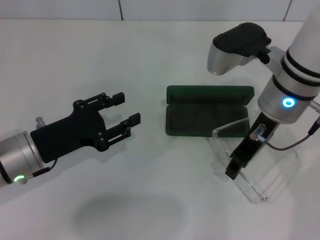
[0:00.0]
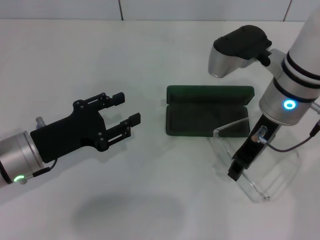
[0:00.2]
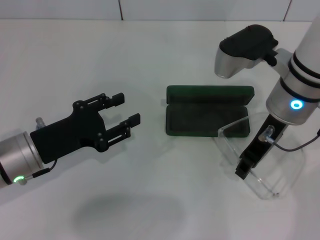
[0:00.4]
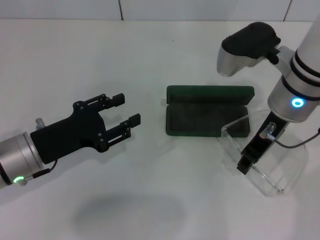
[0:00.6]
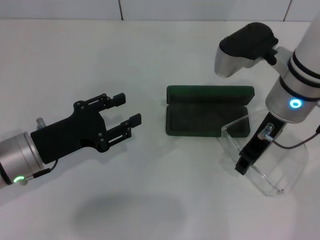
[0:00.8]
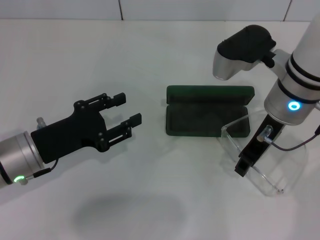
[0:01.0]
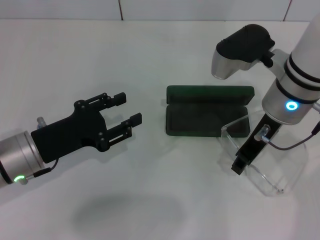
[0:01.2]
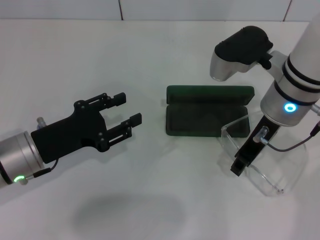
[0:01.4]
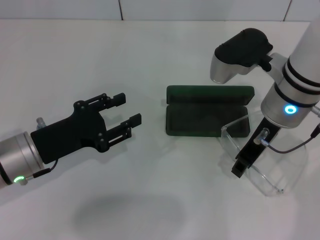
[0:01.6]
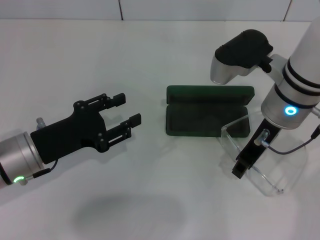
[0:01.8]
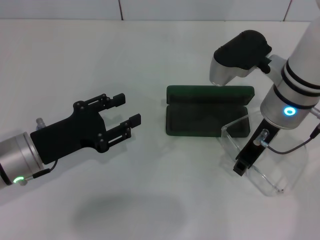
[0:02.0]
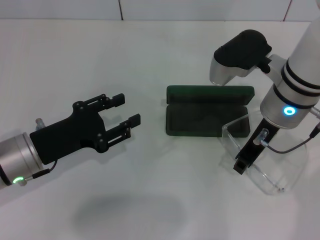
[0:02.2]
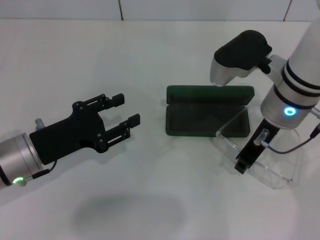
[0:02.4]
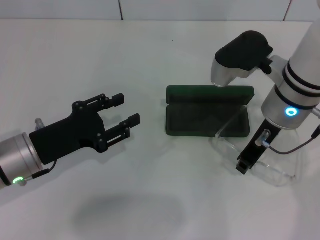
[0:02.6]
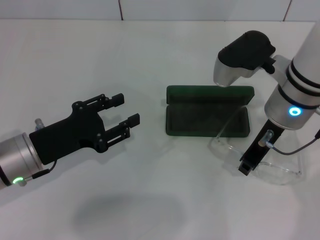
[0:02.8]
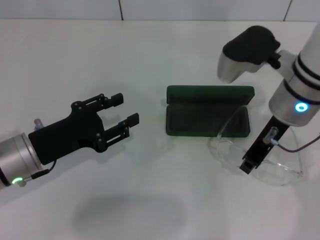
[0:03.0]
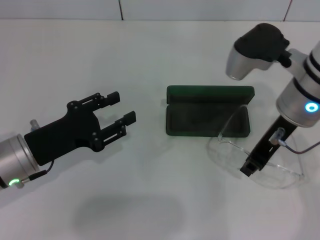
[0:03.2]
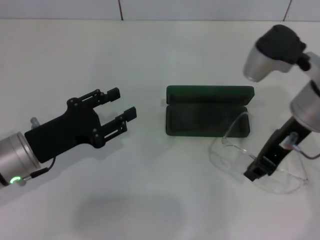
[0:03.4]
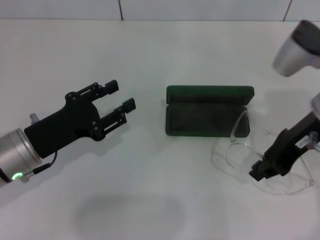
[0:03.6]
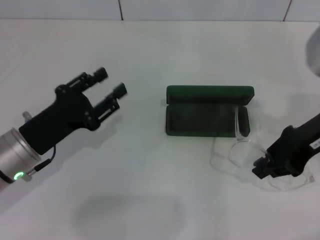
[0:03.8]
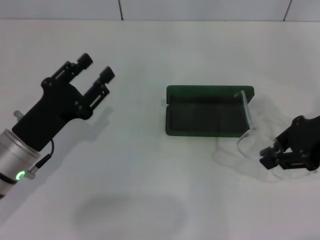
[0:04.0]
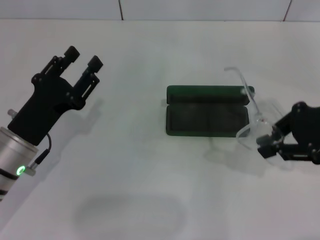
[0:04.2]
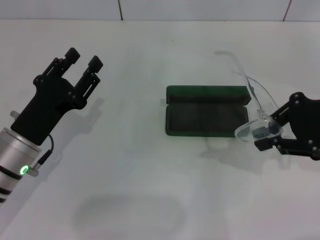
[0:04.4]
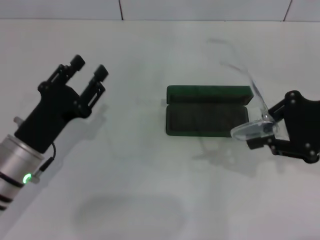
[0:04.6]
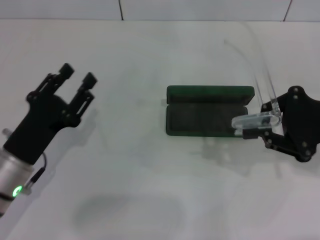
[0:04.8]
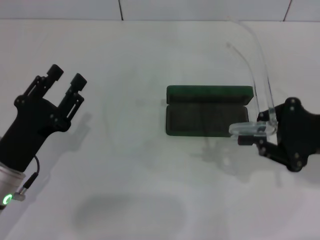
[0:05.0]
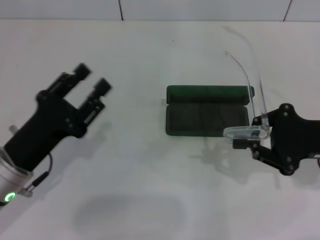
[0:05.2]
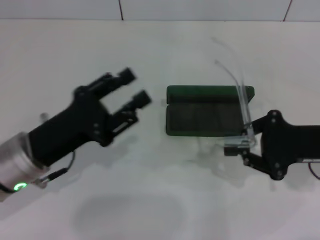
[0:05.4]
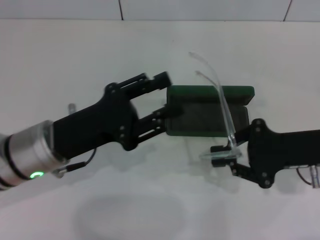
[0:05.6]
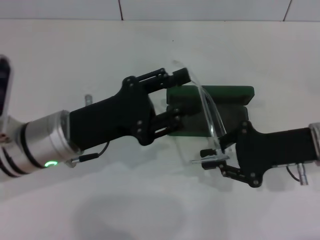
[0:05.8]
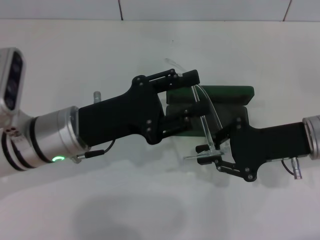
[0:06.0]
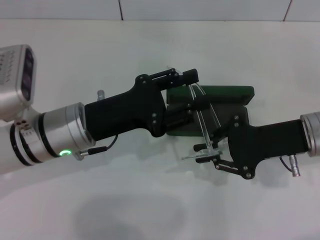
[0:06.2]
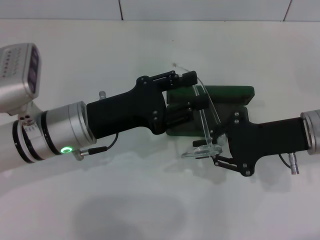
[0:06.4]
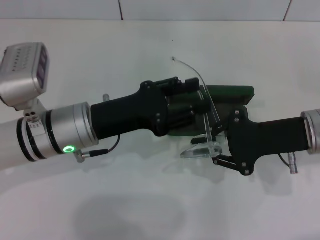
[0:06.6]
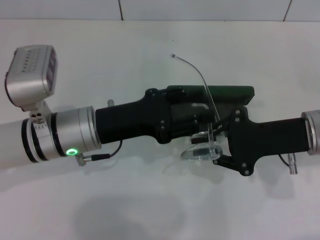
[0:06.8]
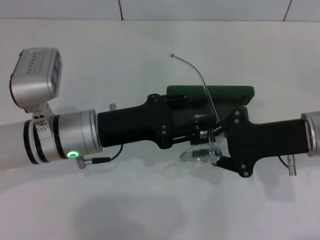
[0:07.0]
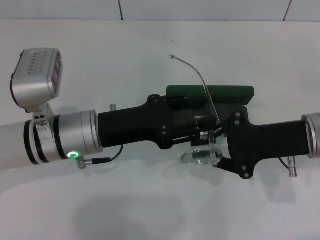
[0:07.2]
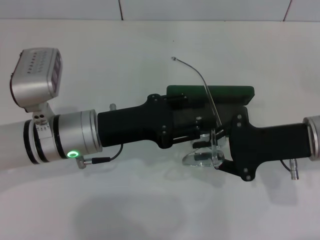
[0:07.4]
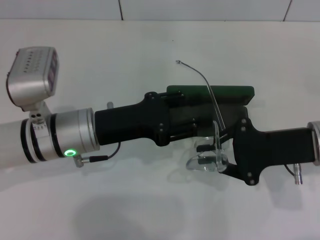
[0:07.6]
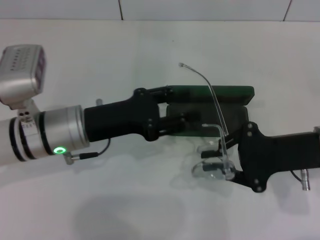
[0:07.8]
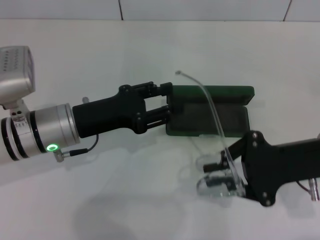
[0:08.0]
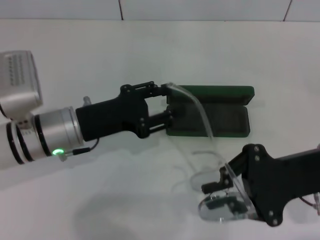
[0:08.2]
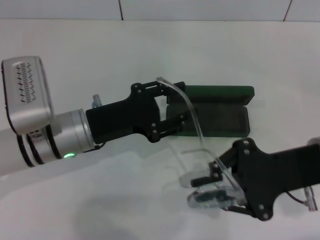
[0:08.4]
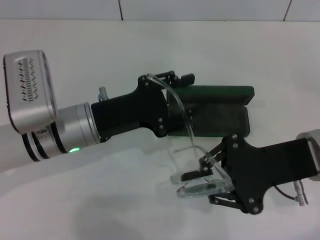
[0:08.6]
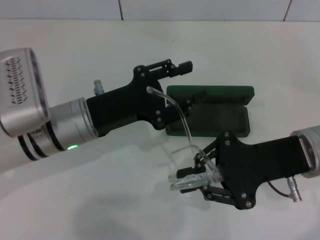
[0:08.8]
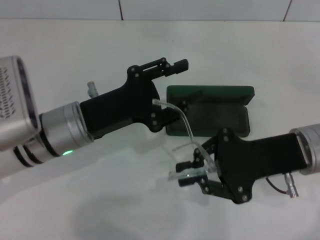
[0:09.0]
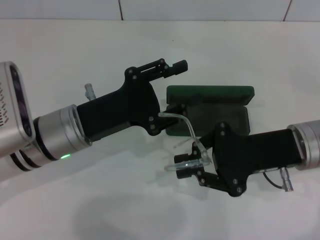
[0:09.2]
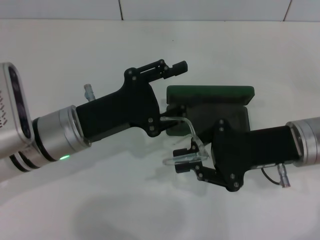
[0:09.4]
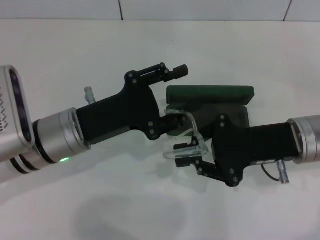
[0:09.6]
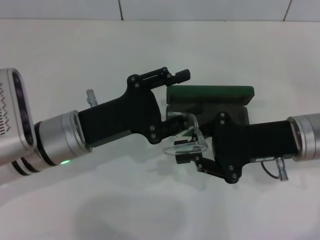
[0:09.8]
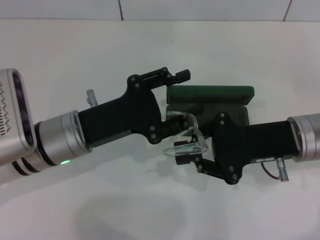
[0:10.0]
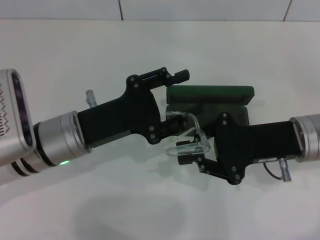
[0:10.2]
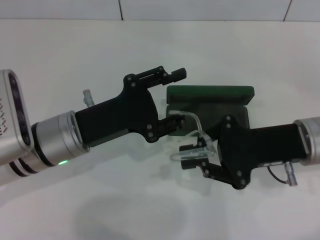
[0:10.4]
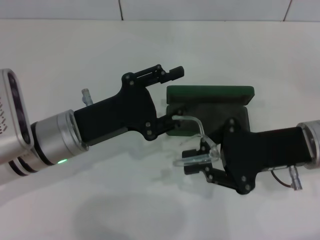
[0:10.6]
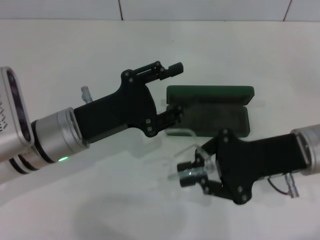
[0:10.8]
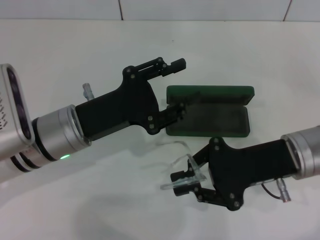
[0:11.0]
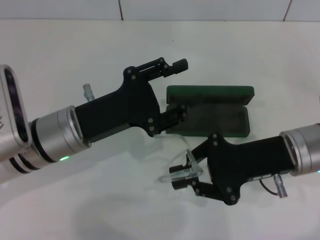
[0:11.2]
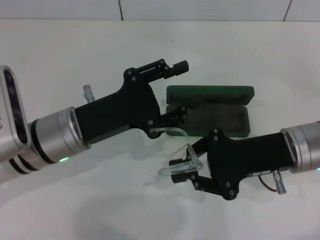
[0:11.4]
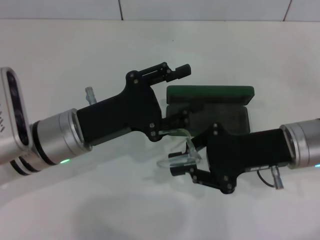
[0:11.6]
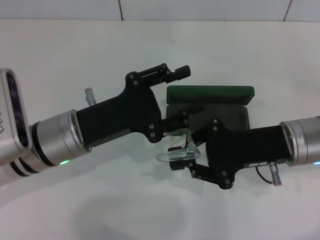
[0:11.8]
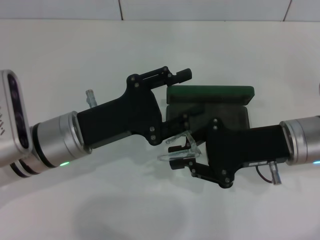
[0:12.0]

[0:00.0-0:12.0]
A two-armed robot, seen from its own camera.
Step, 0:00.0 to 0:02.6: Grab the eyeglass frame with your right hand.
Step, 0:03.0 to 0:10.0: Fold the frame with your left hand.
0:00.0 to 0:01.6: Both grippers stay about where they are.
0:01.6 to 0:03.0: Both grippers stay about where they are.
0:03.0 to 0:04.4: The right gripper heads to the right, covering approximately 15 cm.
0:04.4 to 0:06.0: The right gripper shifts approximately 10 cm downward, while the left gripper goes approximately 10 cm to the right and upward.
0:06.0 to 0:07.6: The grippers move only a little.
0:09.0 to 0:12.0: There are only small adjustments of the grippers.

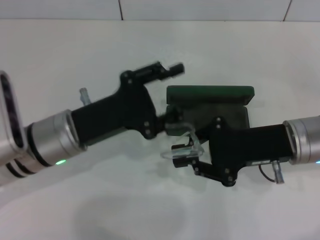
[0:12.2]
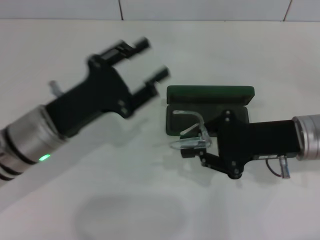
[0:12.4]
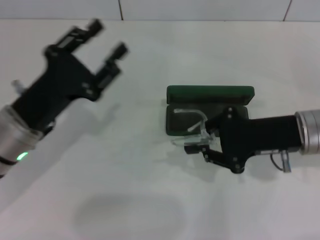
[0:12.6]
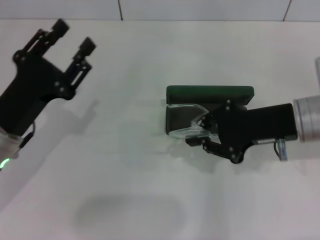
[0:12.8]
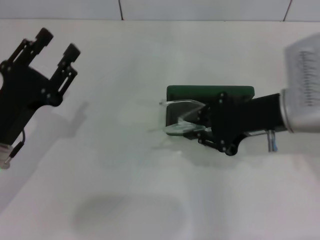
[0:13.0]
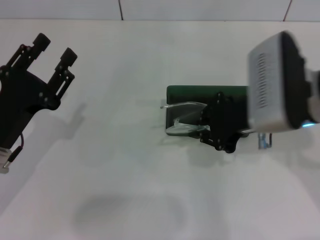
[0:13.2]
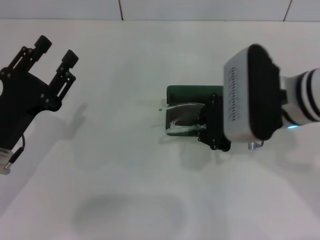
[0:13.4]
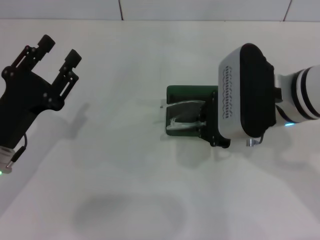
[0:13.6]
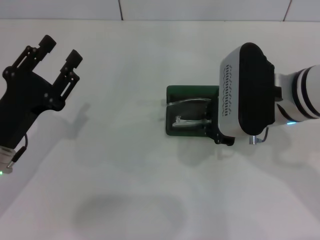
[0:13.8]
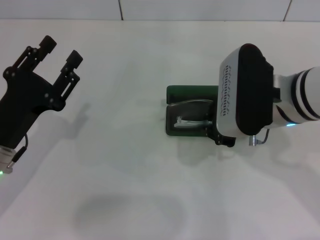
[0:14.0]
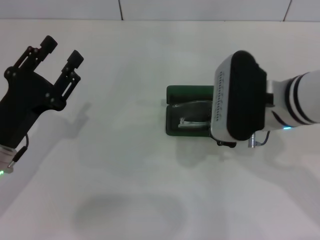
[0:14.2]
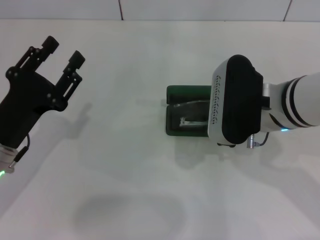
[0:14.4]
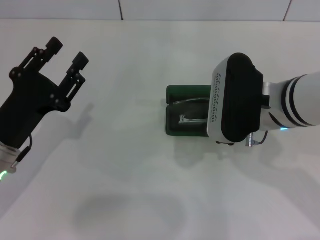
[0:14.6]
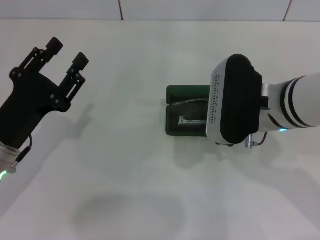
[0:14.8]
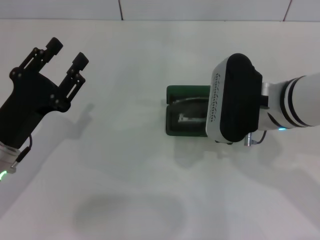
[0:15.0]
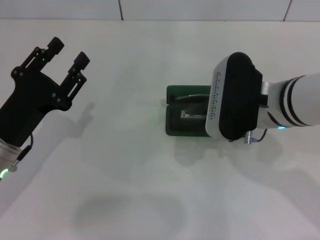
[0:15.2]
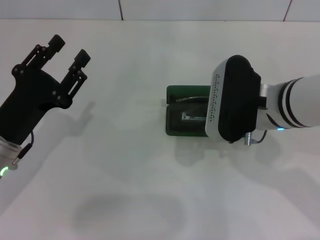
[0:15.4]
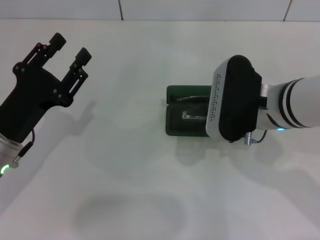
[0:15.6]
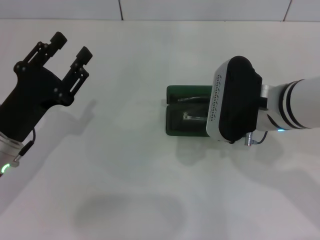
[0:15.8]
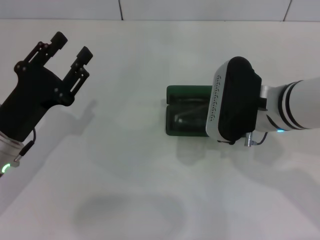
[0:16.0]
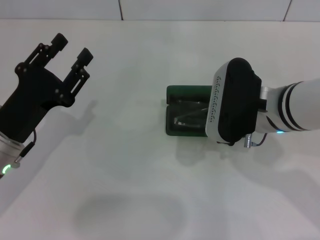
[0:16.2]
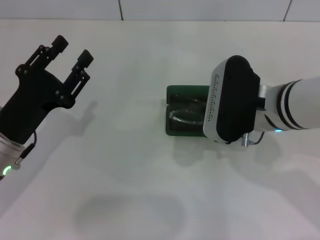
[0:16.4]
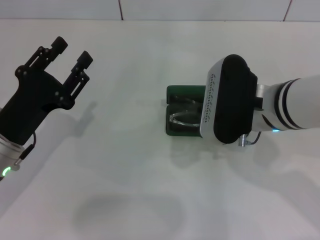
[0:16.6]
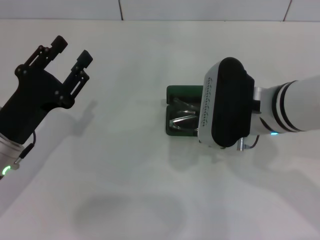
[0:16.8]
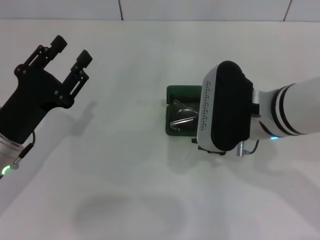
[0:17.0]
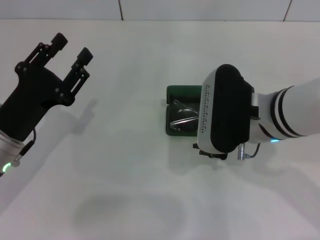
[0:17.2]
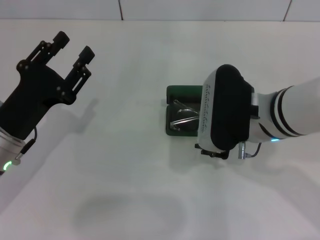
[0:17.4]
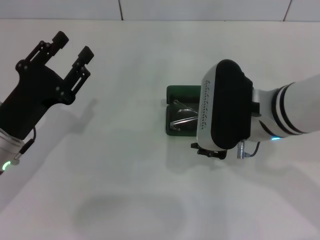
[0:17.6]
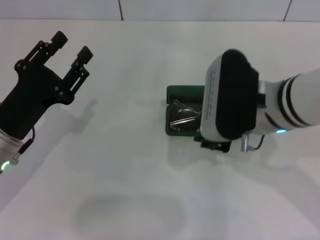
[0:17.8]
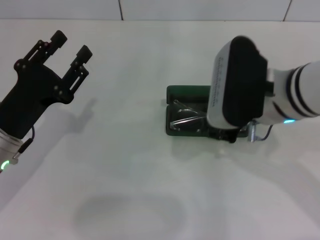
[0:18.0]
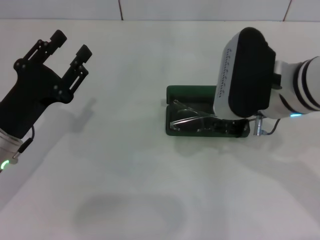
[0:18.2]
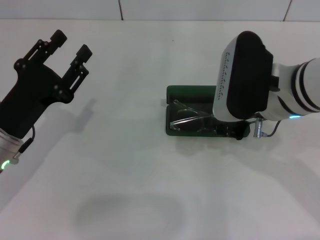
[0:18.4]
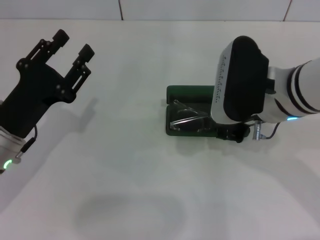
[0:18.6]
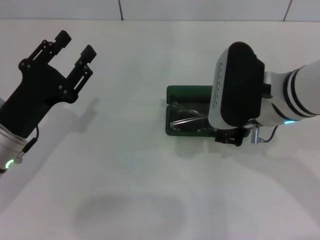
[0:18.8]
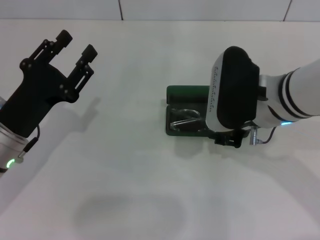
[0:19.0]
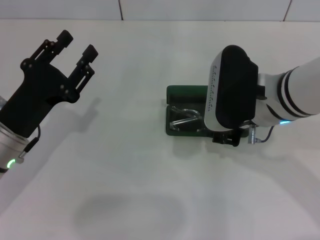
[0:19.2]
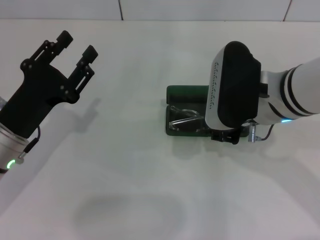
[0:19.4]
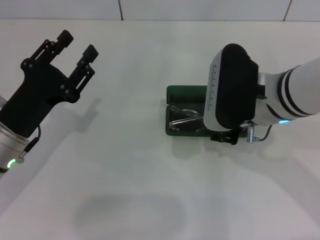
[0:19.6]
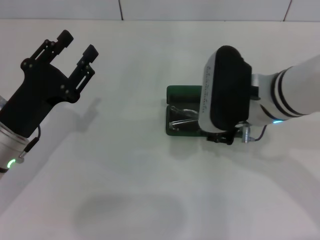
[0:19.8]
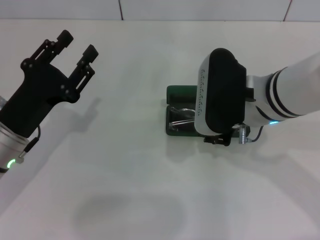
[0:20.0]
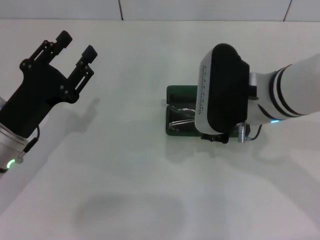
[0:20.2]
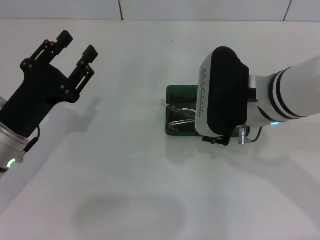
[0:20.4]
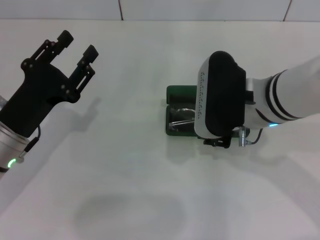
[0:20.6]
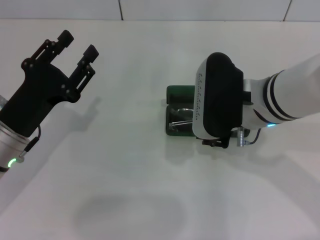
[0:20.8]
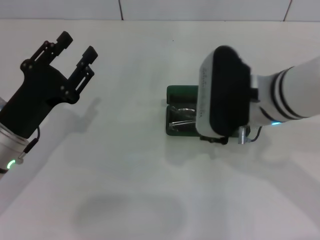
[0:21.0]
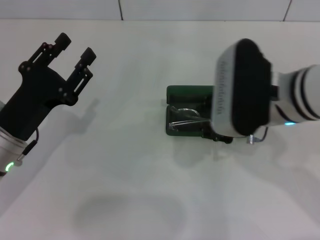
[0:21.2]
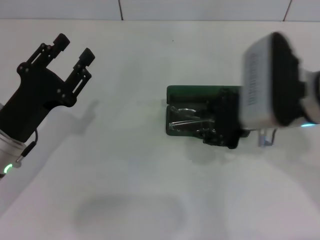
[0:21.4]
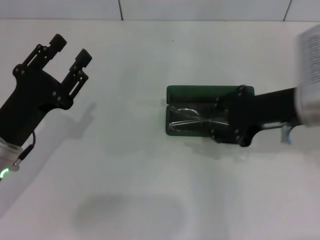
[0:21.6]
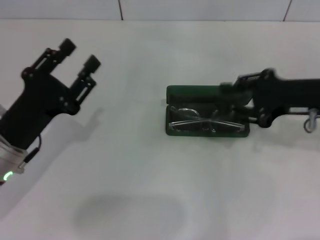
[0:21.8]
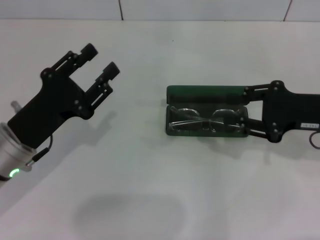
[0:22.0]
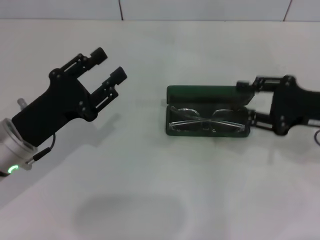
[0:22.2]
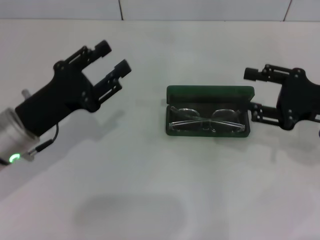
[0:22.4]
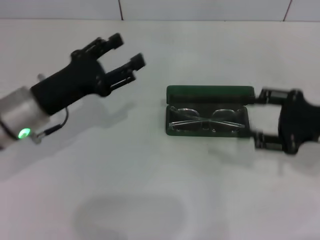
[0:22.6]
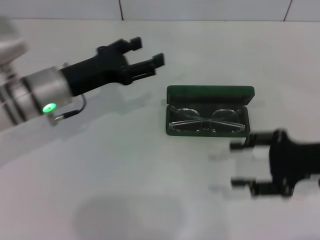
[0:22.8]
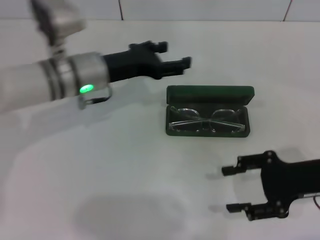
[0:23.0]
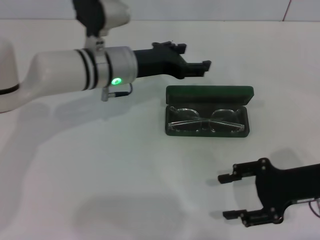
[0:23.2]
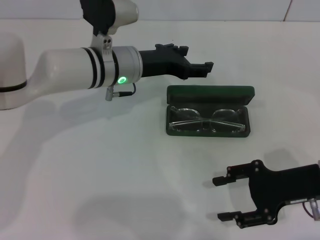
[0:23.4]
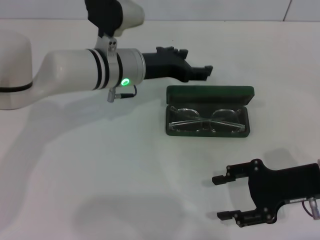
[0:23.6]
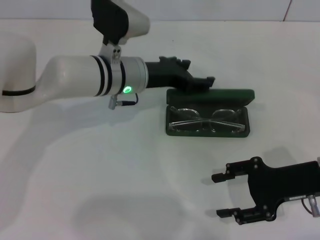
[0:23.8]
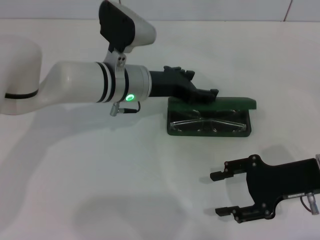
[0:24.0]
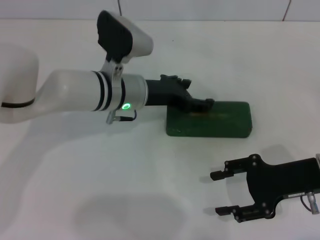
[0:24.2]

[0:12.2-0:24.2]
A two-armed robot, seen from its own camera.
Step, 0:12.2 to 0:17.0: Put the glasses into the case with your right hand.
0:12.2 to 0:13.8: The left gripper moves to the left, about 10 cm, while the right gripper shifts approximately 10 cm upward and to the left.
0:13.8 to 0:15.2: The grippers make only small movements.
0:15.2 to 0:16.6: The two grippers keep their place.
0:16.6 to 0:21.2: There are only small adjustments of the grippers.
0:21.2 to 0:22.6: The left gripper changes place by about 5 cm; the right gripper heads to the right, covering roughly 15 cm.
0:22.6 to 0:24.2: The right gripper ends up some 5 cm from where it was. The left gripper is displaced to the right and forward by approximately 15 cm.
